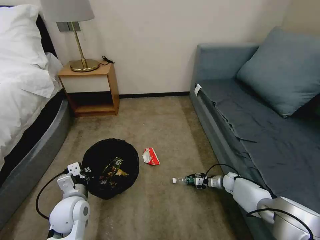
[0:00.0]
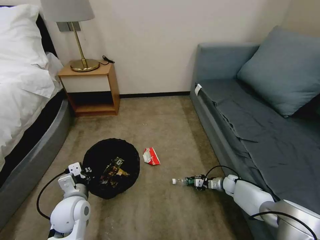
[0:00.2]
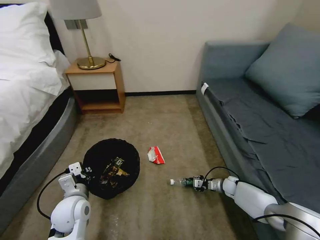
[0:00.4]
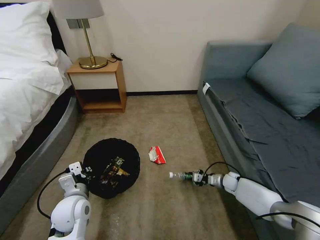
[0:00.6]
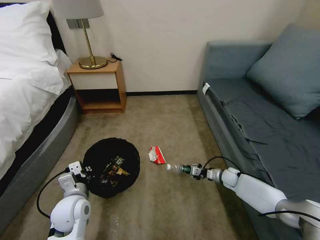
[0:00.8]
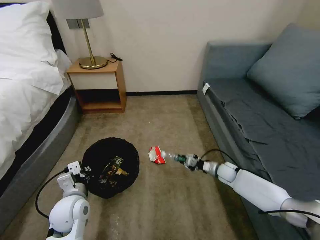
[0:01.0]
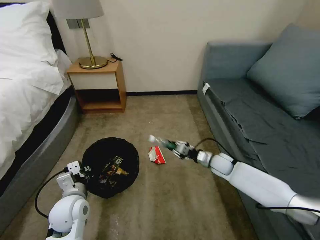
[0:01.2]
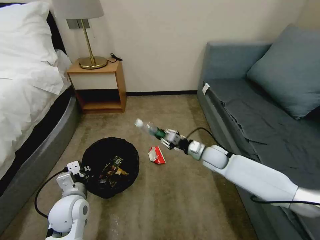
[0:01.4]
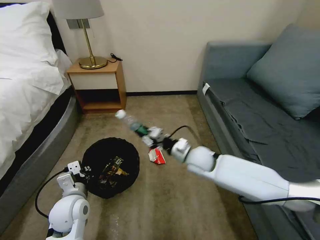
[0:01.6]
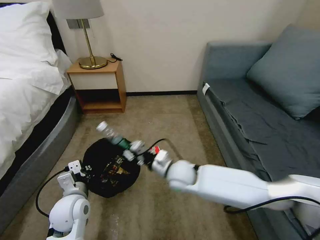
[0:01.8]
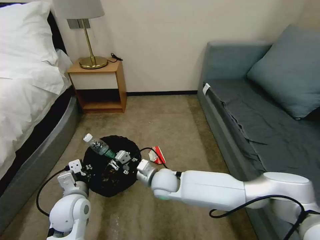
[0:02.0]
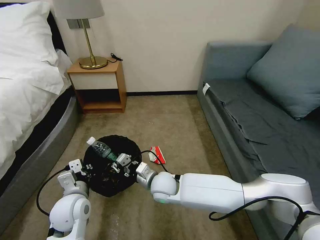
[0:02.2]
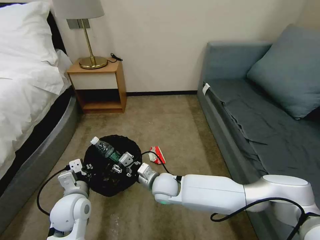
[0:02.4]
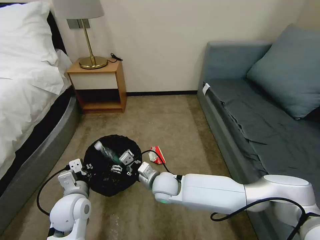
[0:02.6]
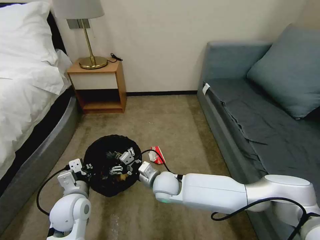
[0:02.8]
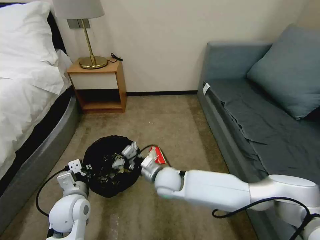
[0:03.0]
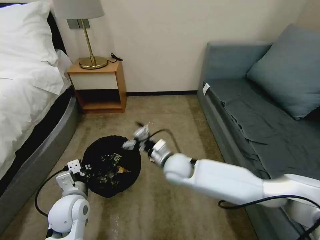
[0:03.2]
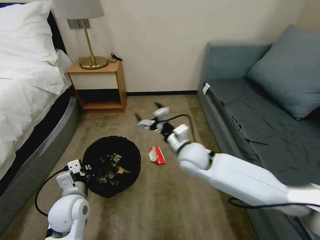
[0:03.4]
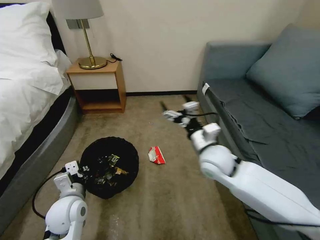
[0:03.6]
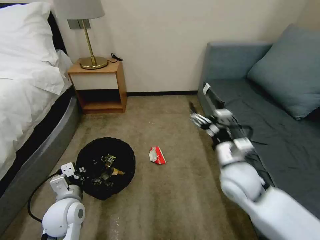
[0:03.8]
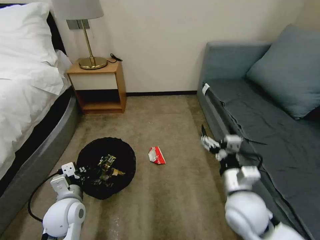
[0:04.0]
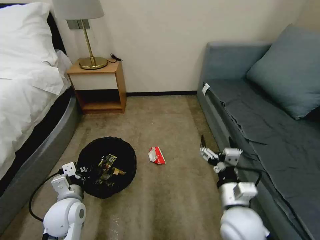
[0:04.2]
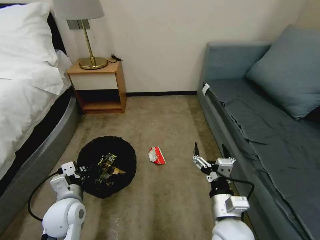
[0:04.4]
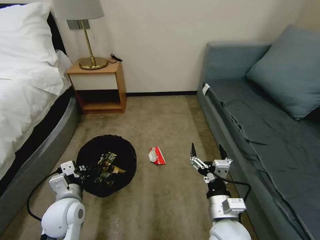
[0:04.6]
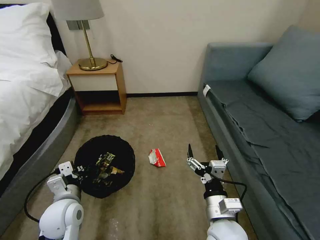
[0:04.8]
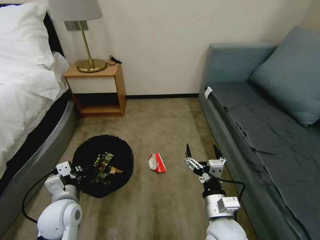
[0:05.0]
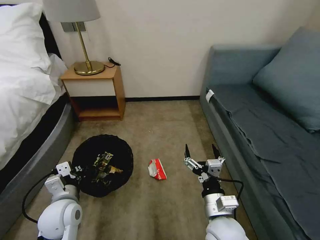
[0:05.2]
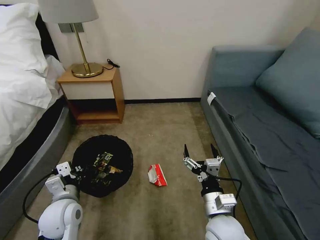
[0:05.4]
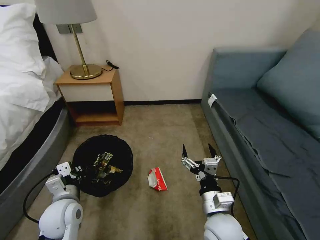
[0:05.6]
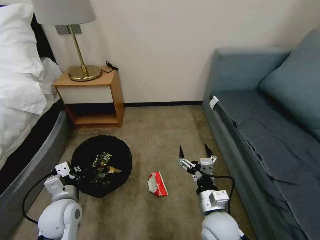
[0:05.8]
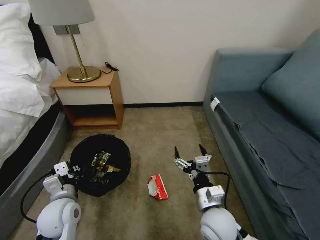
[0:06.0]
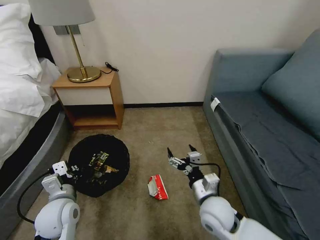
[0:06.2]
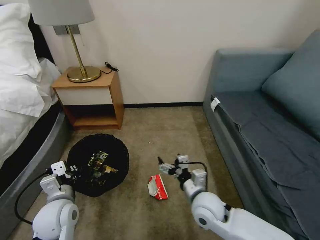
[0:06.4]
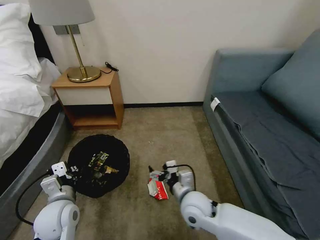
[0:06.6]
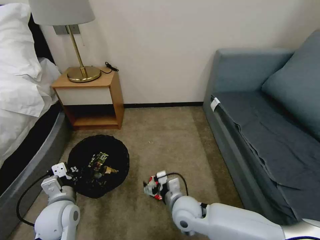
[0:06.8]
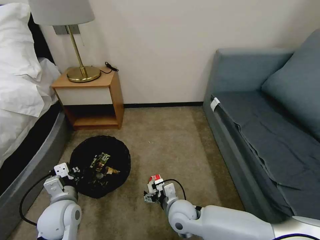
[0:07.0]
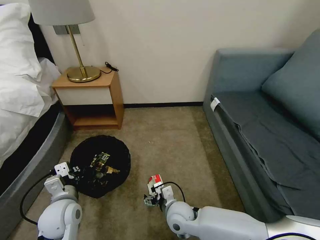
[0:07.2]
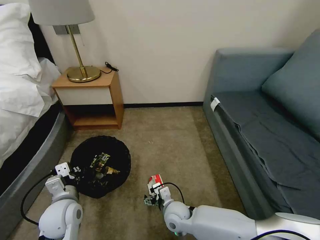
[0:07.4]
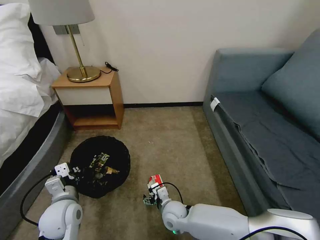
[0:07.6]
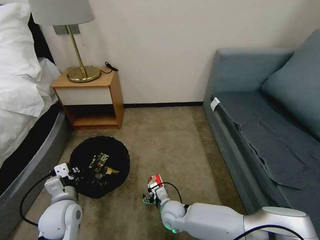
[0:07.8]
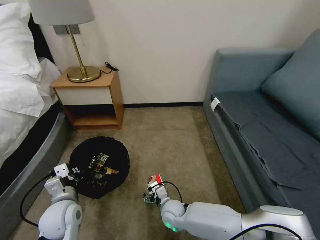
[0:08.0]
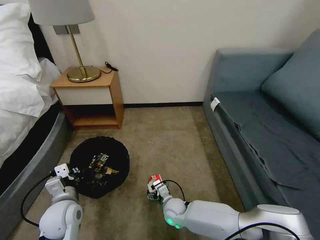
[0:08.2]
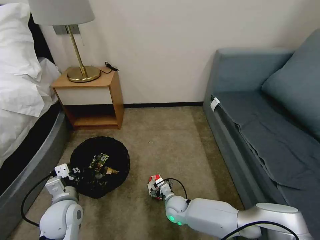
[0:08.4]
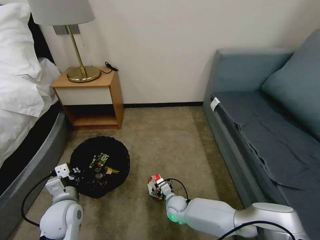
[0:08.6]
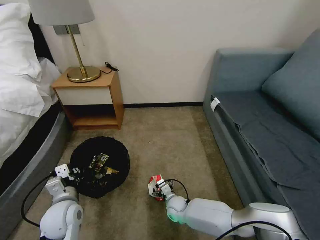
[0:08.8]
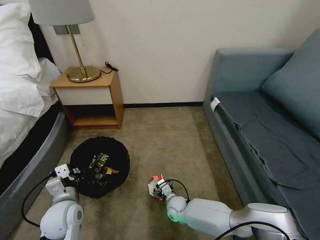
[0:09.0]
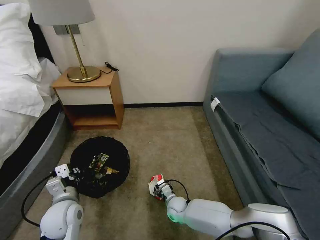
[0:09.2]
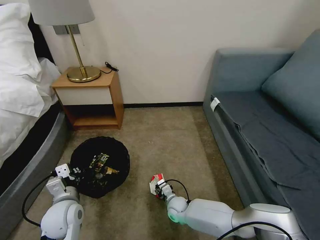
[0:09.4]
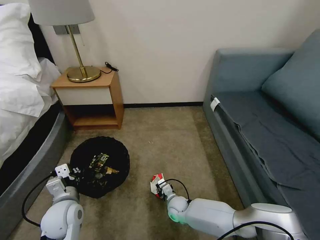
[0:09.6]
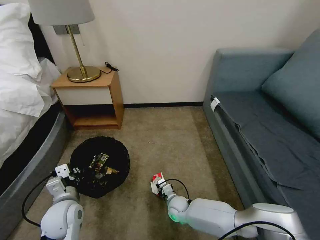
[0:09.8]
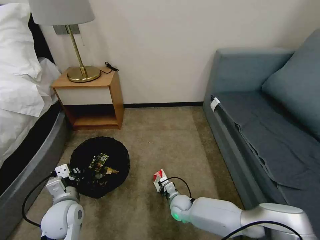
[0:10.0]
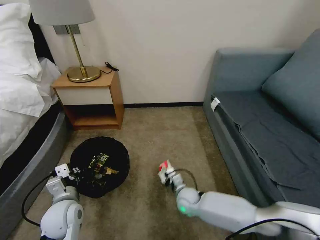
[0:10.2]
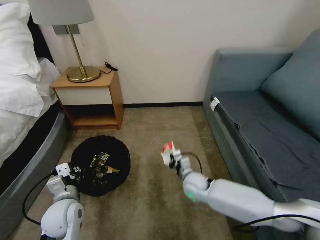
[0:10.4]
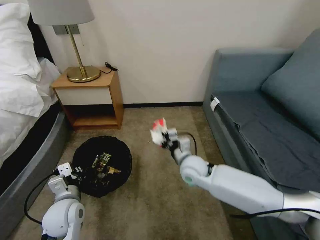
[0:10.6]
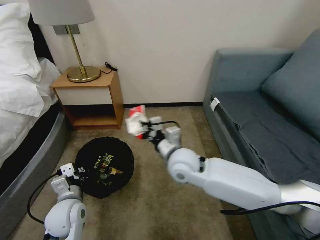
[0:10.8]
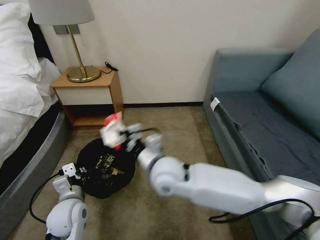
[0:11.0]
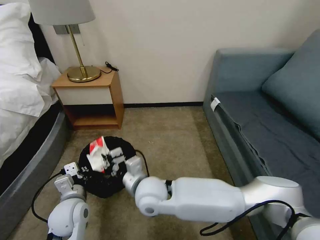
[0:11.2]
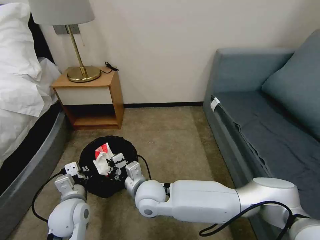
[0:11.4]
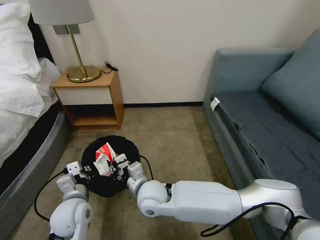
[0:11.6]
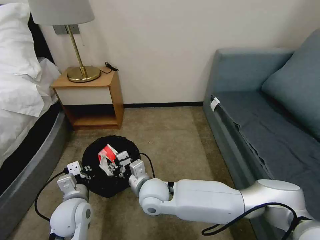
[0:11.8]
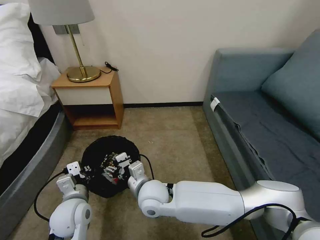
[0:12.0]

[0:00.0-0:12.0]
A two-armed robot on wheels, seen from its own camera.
Task of the whole recording: Pick up the trash bin, then pick up the garbage on the floor and place it into the trash bin.
0:00.0 to 0:01.6: The right gripper goes some 35 cm upward and to the left.
0:01.6 to 0:03.0: The right gripper moves to the left and backward, some 10 cm, and opens.
0:03.0 to 0:04.4: The right gripper travels backward and to the right by some 25 cm.
0:04.4 to 0:06.0: The right gripper moves some 5 cm.
0:06.0 to 0:07.6: The right gripper heads downward, to the left and forward, covering approximately 20 cm.
0:07.6 to 0:09.0: The right gripper goes some 10 cm downward.
0:09.0 to 0:10.4: The right gripper goes some 15 cm upward, and closes up.
0:10.4 to 0:12.0: The right gripper shifts approximately 20 cm to the left, upward and backward, and opens up.

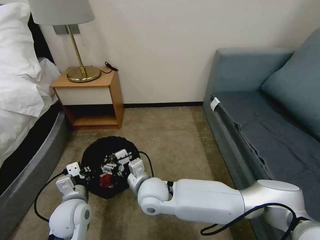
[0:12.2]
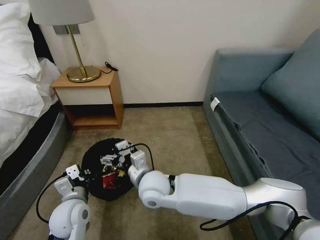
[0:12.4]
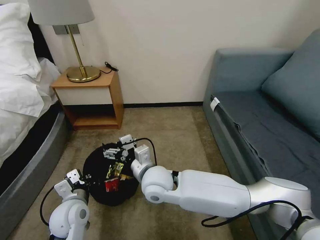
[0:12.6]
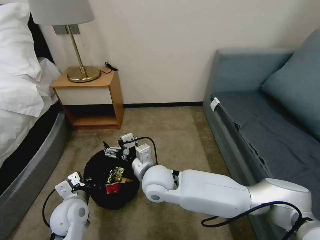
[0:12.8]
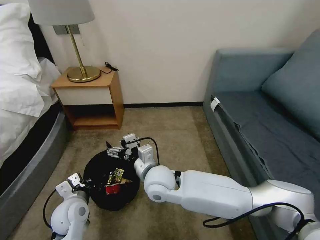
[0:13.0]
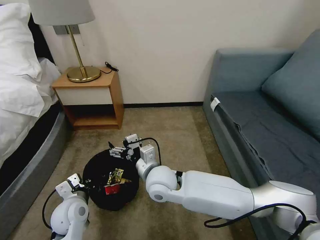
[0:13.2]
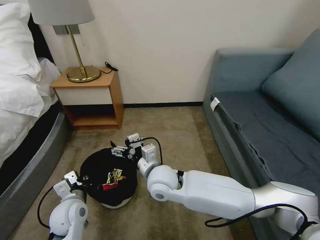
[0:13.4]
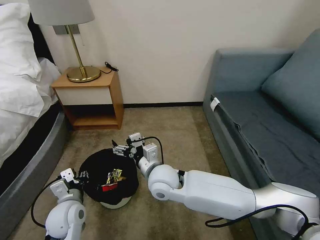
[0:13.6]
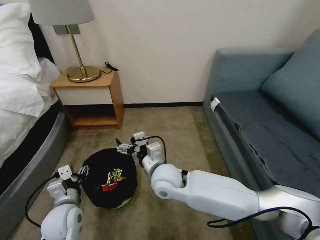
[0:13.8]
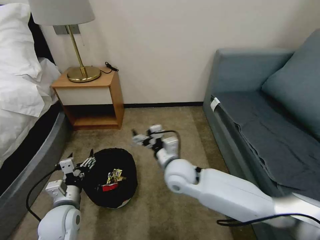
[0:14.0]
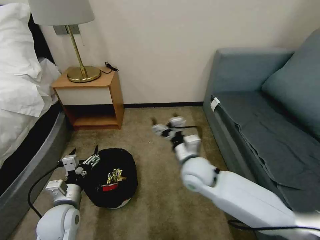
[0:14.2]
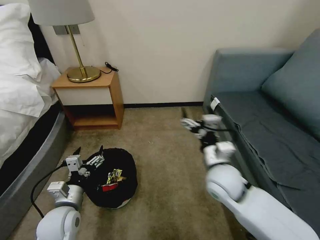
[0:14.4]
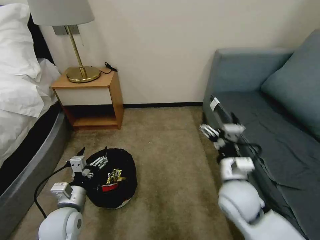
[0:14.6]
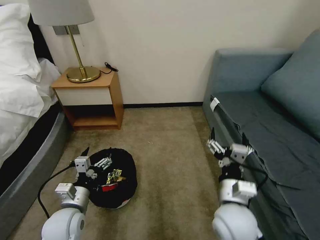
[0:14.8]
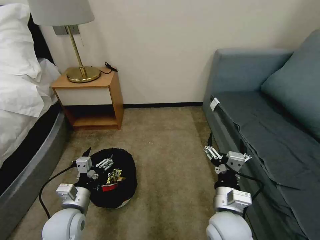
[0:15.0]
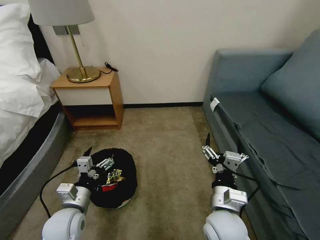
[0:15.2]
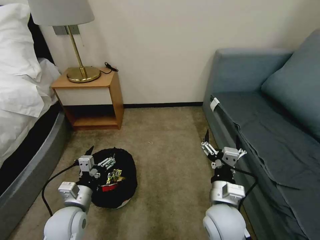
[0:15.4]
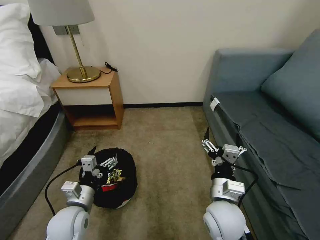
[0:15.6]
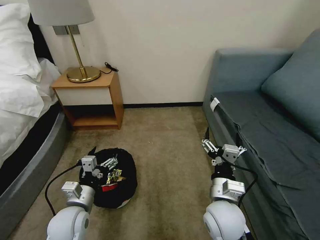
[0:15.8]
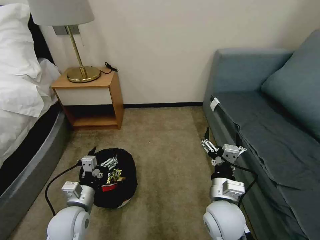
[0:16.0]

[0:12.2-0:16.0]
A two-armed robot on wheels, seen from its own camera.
Task of the whole recording: Pick up the trash bin, then pick up the garbage on the floor and place it into the trash bin.
0:12.2 to 0:13.4: The right gripper changes place by some 5 cm.
0:13.4 to 0:14.8: The right gripper shifts some 20 cm to the right and backward. The left gripper opens.
0:14.8 to 0:16.0: The grippers move only a little.

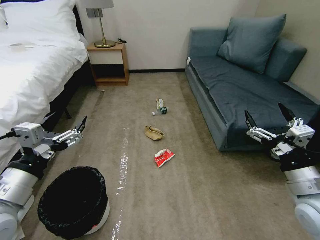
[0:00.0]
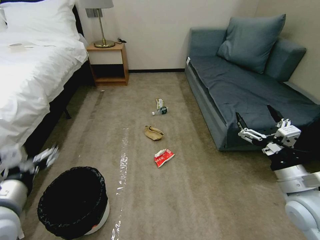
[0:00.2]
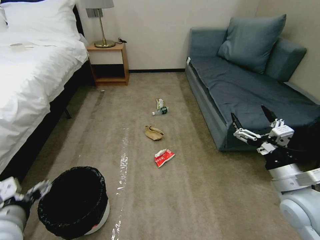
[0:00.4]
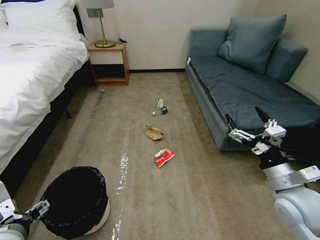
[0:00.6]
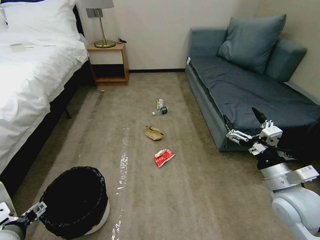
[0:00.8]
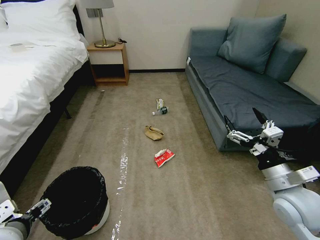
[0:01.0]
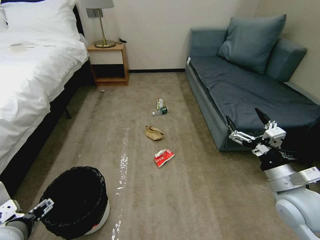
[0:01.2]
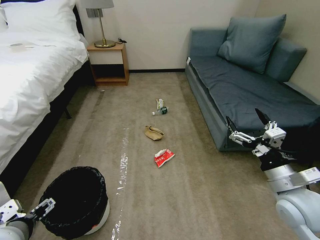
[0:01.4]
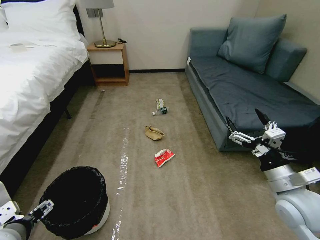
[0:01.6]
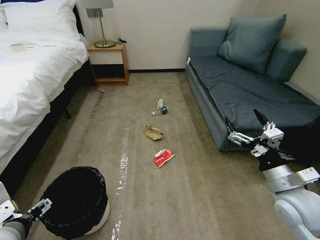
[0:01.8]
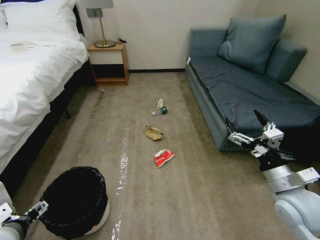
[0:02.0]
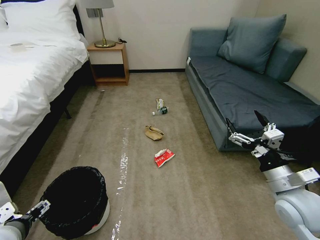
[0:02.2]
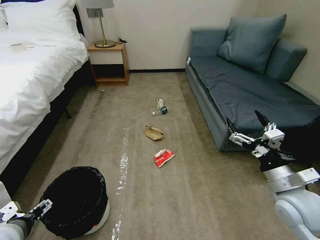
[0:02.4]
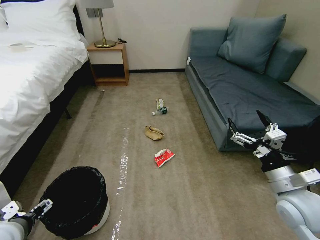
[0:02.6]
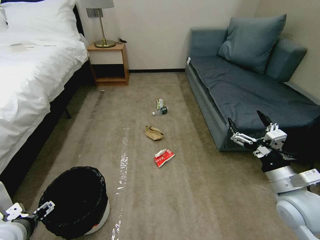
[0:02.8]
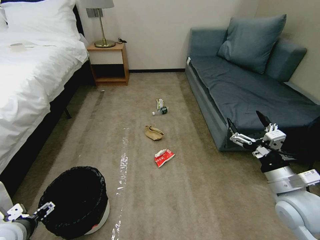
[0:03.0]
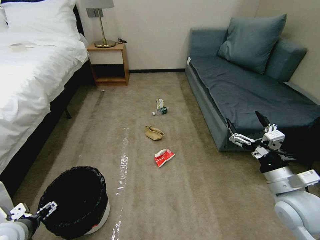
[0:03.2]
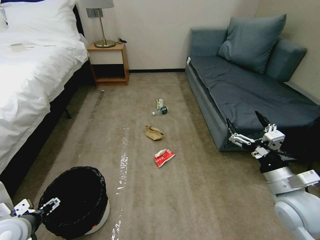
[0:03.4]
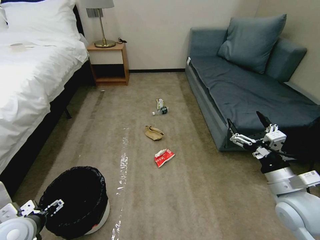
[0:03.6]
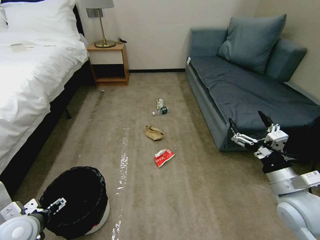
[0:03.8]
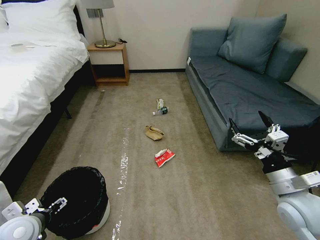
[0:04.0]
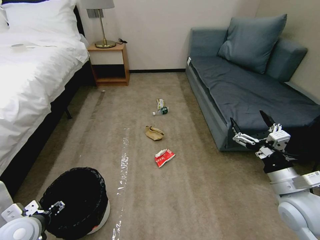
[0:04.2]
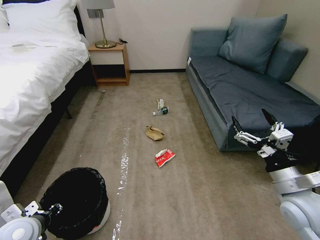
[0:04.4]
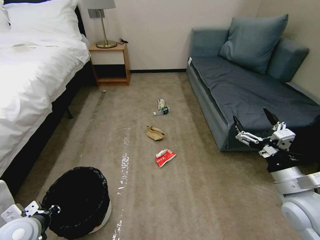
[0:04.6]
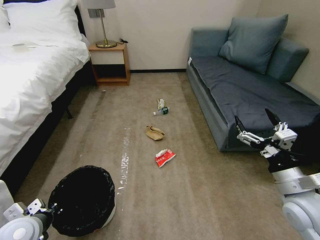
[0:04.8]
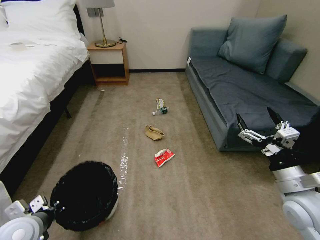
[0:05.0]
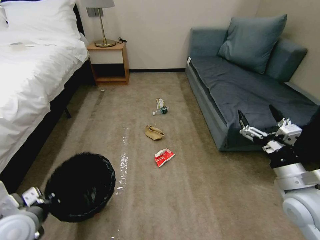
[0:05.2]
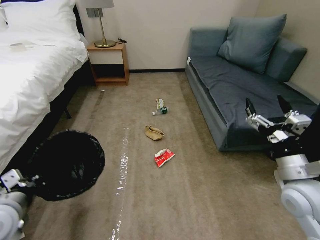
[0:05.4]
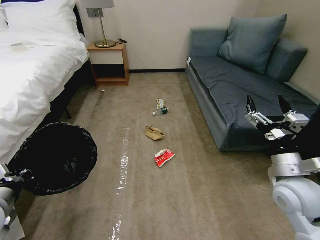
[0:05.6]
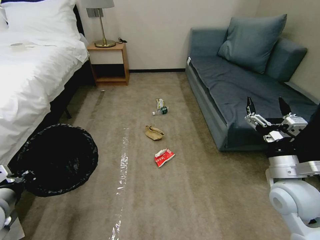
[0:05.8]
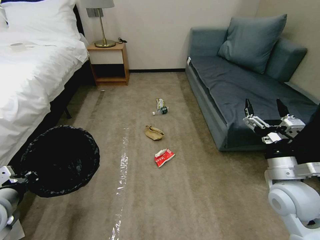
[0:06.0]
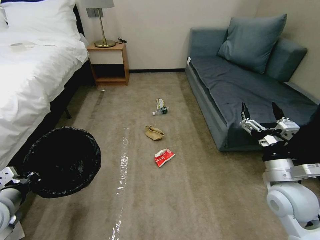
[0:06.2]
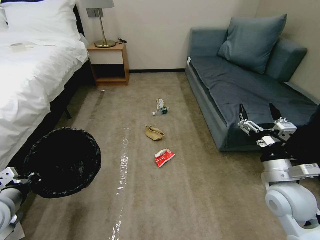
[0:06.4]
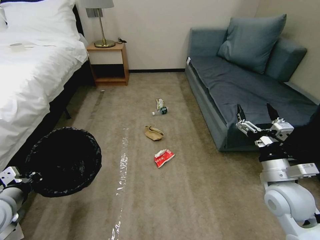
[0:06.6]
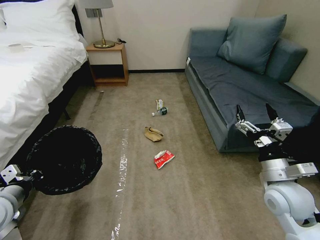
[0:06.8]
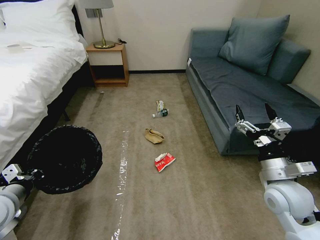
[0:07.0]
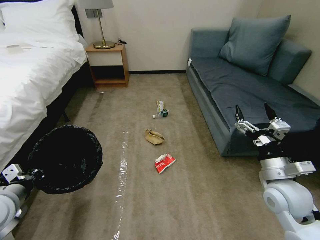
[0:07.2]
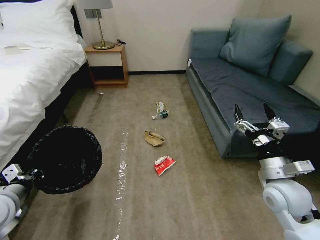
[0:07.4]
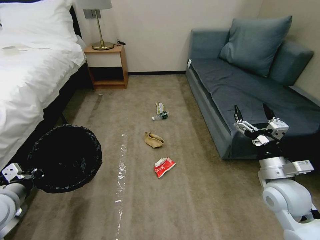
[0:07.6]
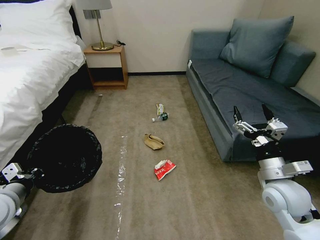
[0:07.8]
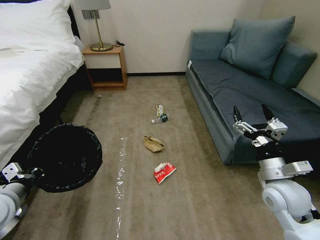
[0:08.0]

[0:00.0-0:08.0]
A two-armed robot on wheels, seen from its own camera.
Task of the whole recording: Pick up the trash bin, then pick up the garbage on the floor and place it into the trash bin.
0:01.6 to 0:03.2: The left gripper moves downward and to the left, some 10 cm.
0:03.2 to 0:04.8: The left gripper closes its fingers.
0:04.8 to 0:06.4: The left gripper heads upward, covering approximately 10 cm.
